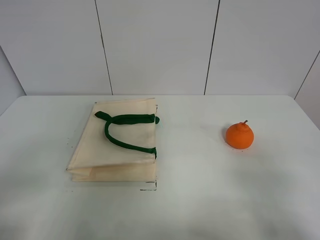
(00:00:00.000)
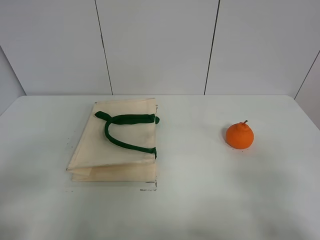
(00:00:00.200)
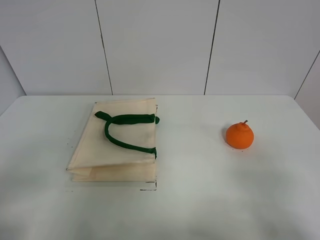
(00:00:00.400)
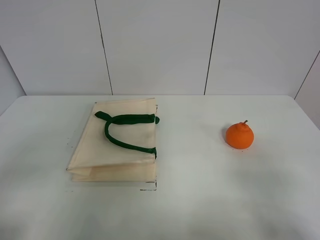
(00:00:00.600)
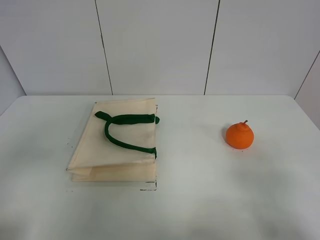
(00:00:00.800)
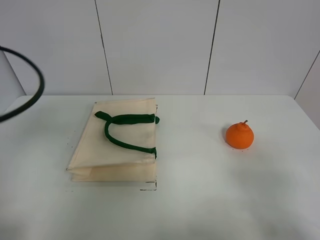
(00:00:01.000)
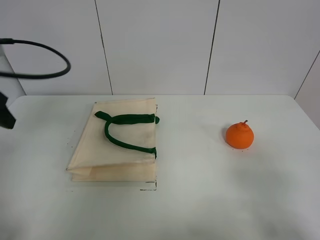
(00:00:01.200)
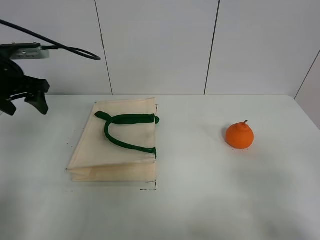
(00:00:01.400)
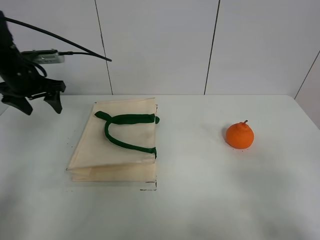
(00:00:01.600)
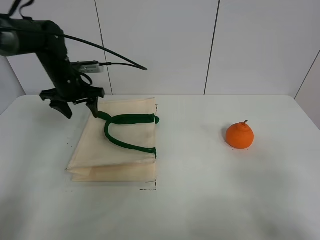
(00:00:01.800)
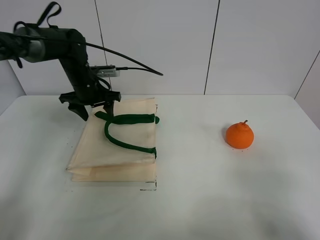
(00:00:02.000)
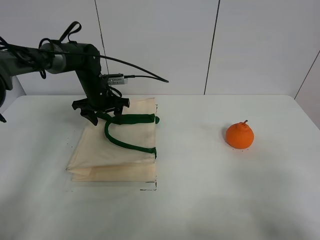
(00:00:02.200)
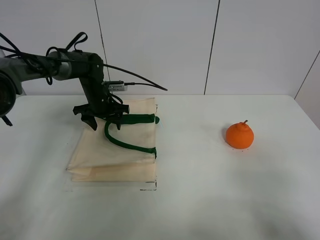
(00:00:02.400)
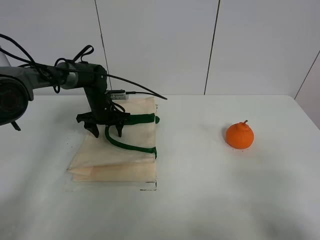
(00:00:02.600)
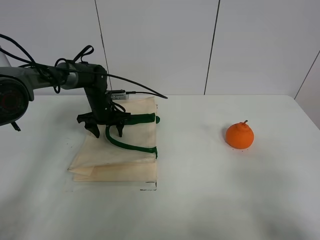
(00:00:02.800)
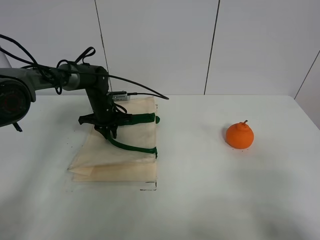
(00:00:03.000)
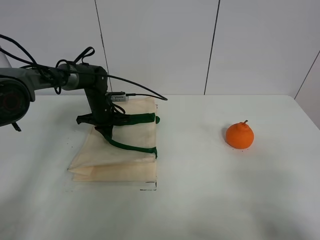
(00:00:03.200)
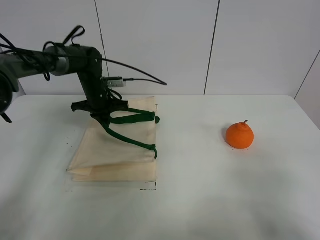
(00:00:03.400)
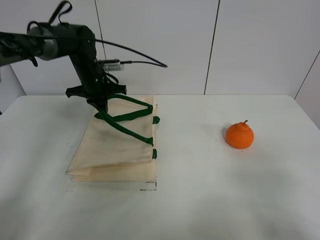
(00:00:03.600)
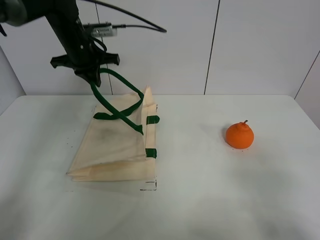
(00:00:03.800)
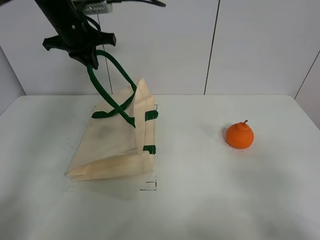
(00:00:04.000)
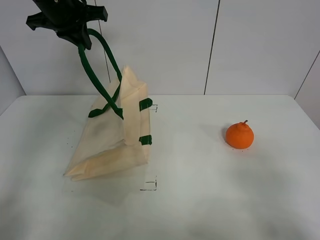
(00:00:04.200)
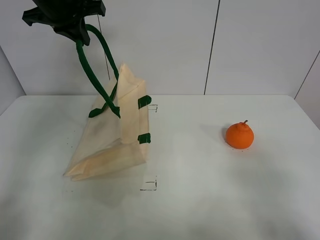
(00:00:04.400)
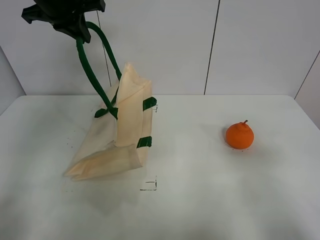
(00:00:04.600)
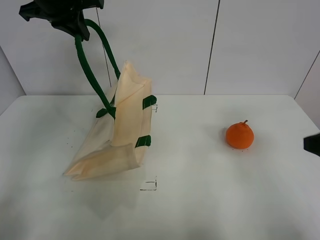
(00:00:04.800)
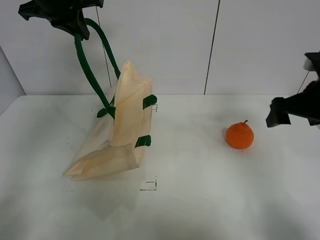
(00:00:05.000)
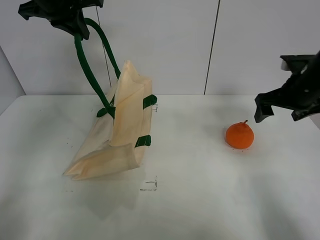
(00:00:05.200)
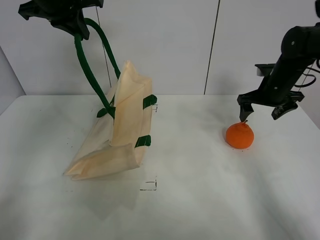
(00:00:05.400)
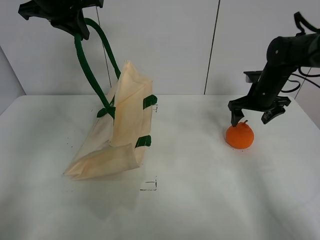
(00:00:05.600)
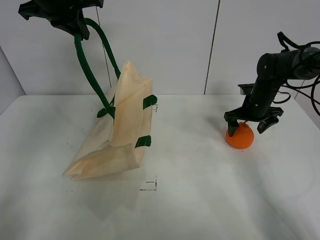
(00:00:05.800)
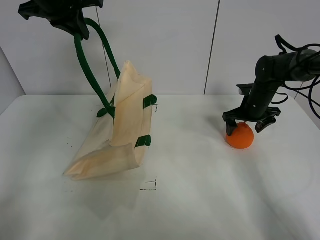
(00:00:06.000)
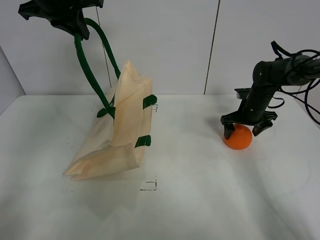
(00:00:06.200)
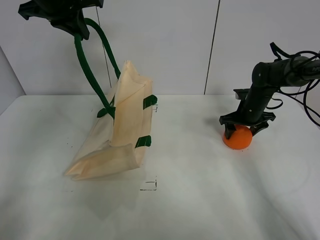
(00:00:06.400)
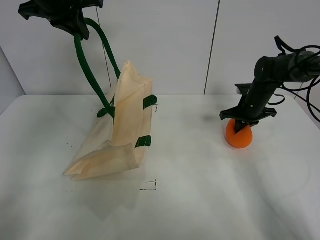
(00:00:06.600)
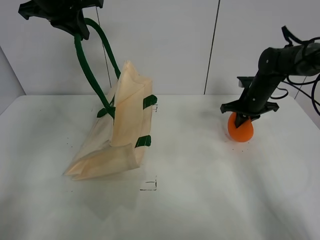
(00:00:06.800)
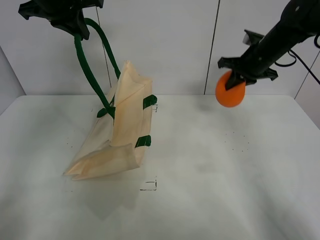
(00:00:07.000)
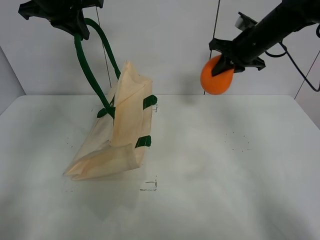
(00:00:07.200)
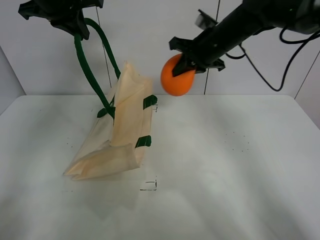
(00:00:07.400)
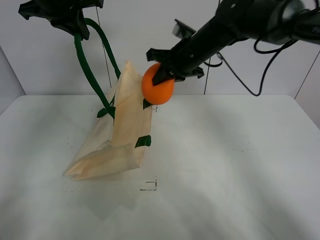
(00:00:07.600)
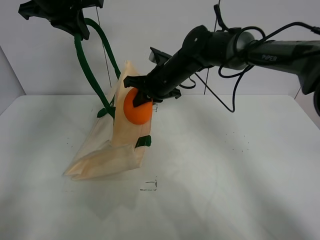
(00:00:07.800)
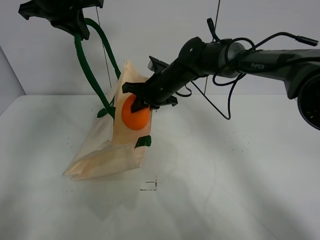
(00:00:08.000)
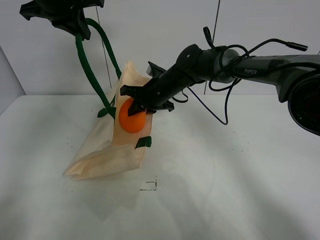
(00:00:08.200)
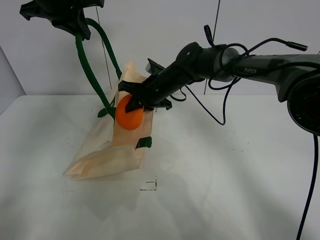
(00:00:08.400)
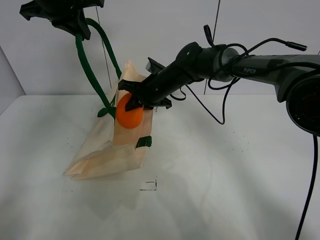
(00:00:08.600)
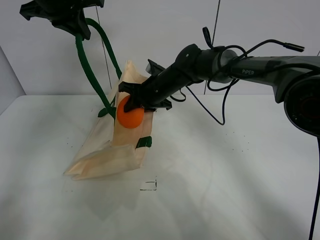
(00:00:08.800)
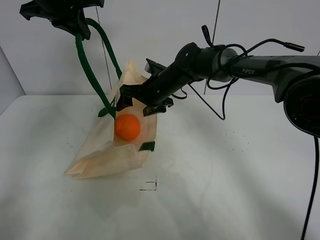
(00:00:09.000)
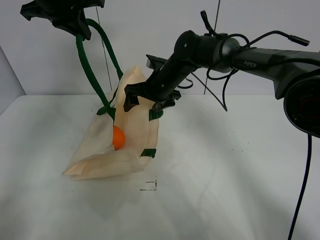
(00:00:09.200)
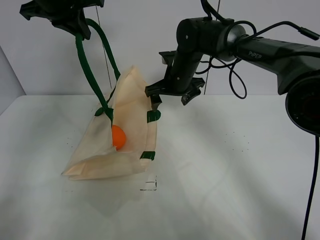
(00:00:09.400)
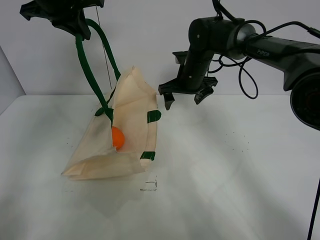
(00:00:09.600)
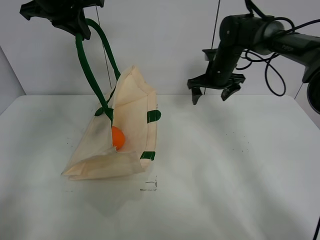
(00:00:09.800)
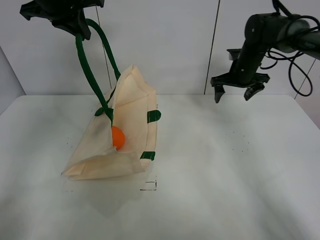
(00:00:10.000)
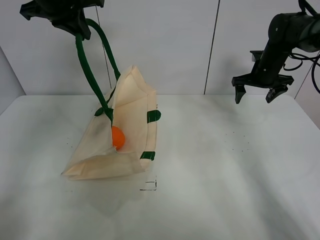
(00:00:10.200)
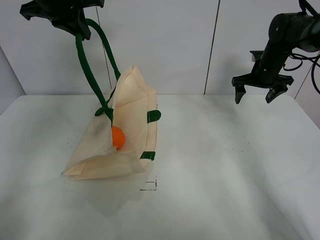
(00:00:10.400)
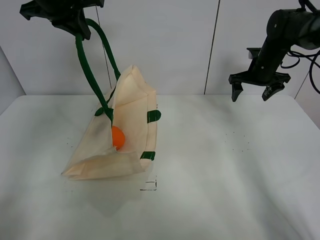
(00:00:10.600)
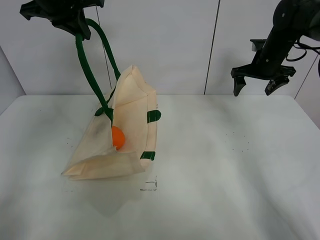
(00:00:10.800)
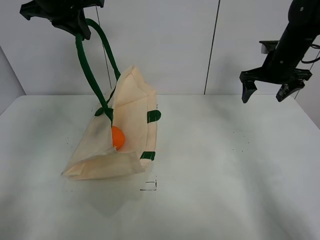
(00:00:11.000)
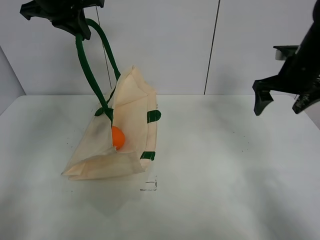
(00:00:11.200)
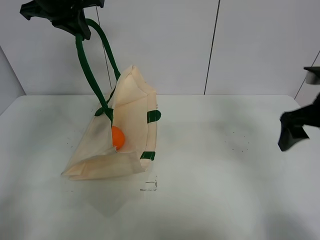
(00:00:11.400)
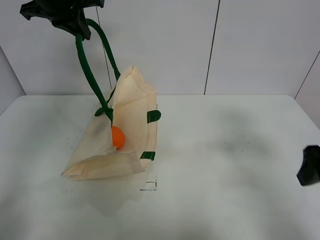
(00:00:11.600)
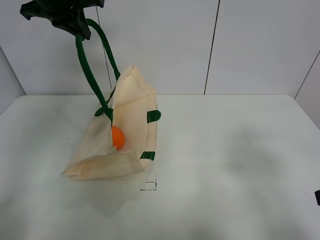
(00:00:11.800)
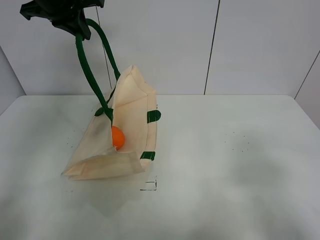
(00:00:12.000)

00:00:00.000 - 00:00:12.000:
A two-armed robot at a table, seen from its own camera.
Task of the whole recording: open the white linen bag and put the orange in the bag.
Step, 00:00:00.000 - 00:00:04.200: Lift the handbag with left gripper.
Step, 00:00:04.400 - 00:00:06.600: Grasp the orange with right gripper.
Step, 00:00:06.800 - 00:00:09.400: Place the orange in the handbag with right gripper.
00:00:00.000 - 00:00:01.600: The left gripper shifts approximately 40 cm forward.
00:00:01.600 - 00:00:03.000: The left gripper travels downward, to the right and forward by about 20 cm, and closes.
00:00:03.000 - 00:00:04.400: The left gripper moves upward, roughly 30 cm, and closes up.
00:00:04.400 - 00:00:06.000: The right gripper travels forward by roughly 40 cm.
00:00:06.000 - 00:00:07.600: The right gripper shifts about 25 cm to the left and upward, and closes.
00:00:07.600 - 00:00:09.000: The right gripper goes roughly 10 cm downward, and opens.
00:00:09.000 - 00:00:10.400: The right gripper moves to the right, roughly 25 cm.
00:00:10.400 - 00:00:12.000: The right gripper moves backward, roughly 40 cm.

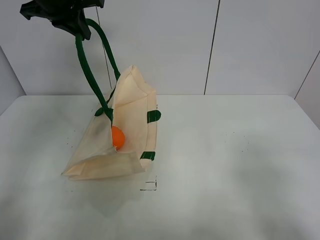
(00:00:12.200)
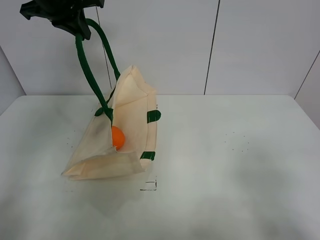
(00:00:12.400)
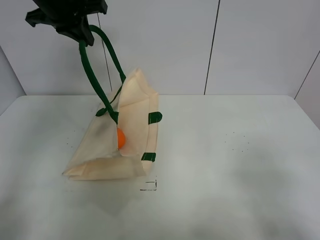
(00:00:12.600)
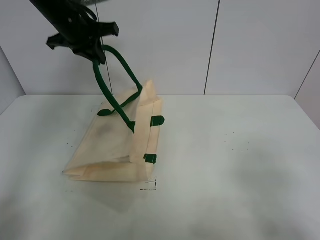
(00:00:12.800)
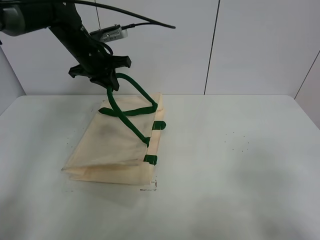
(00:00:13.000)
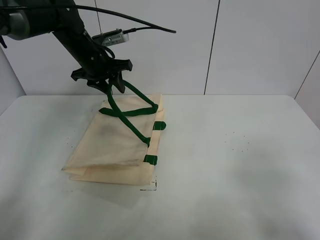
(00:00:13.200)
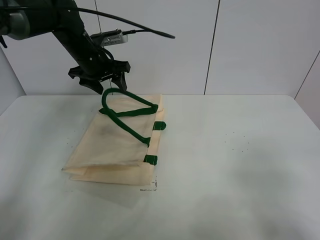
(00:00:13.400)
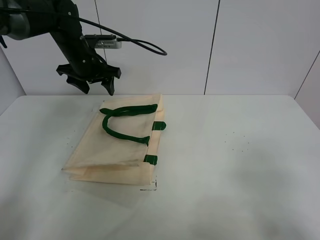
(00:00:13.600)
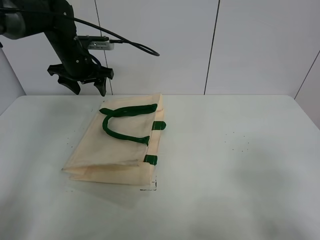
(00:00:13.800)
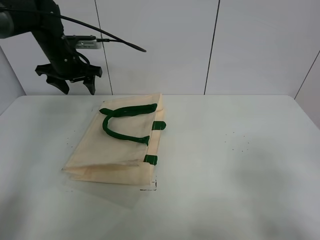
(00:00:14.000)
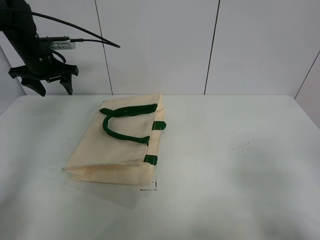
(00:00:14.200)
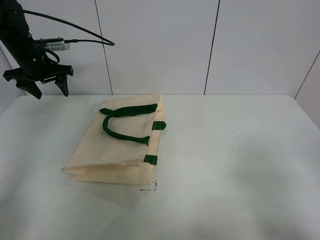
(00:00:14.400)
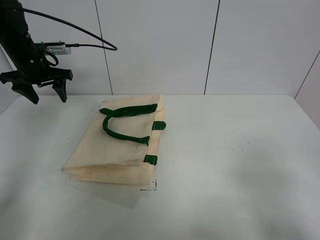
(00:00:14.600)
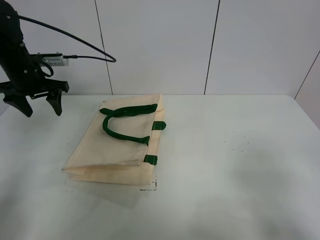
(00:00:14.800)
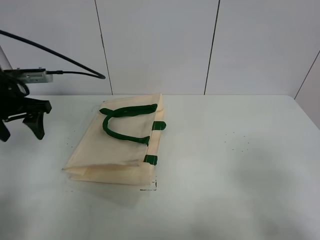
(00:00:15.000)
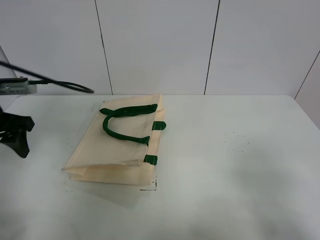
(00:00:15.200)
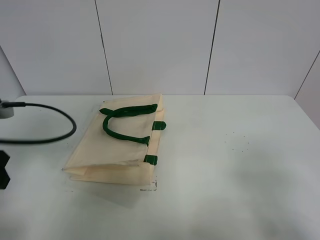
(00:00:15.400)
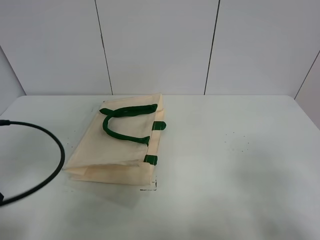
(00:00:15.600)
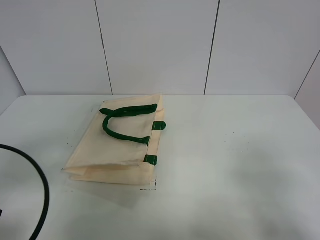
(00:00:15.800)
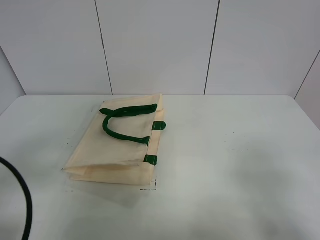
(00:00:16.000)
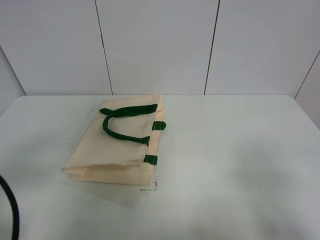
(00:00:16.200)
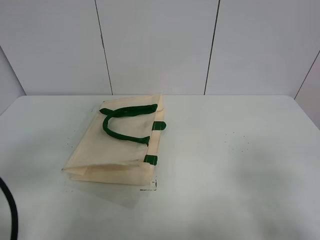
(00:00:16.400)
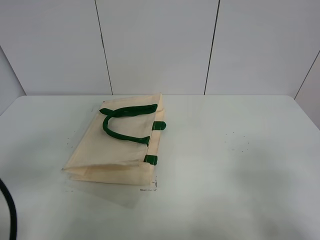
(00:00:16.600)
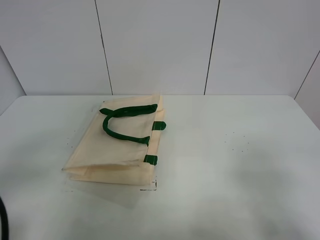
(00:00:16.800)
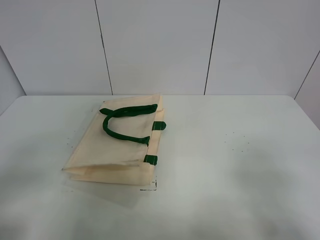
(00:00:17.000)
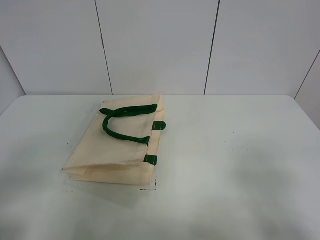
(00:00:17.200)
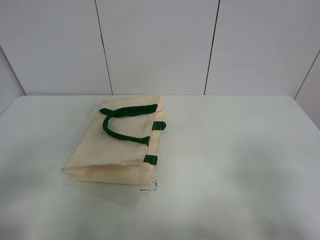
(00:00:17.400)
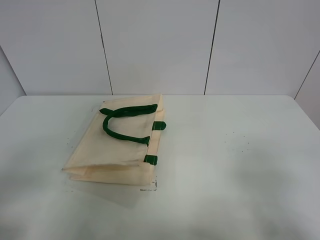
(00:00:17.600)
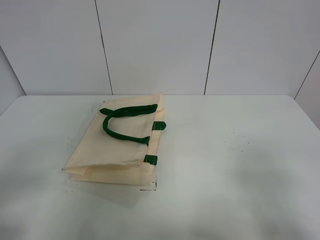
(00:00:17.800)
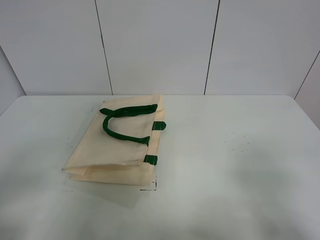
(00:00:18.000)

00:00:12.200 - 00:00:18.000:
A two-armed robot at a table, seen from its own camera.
Task of the whole recording: open the white linen bag and put the orange in the bag.
00:00:12.200 - 00:00:13.600: The left gripper moves downward, roughly 15 cm, and opens up.
00:00:13.600 - 00:00:15.000: The left gripper goes roughly 20 cm backward and to the left.
00:00:15.000 - 00:00:16.600: The left gripper heads backward, covering roughly 25 cm.
